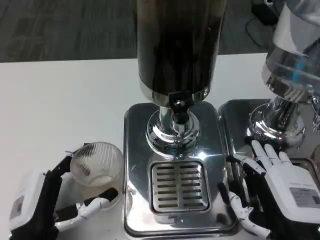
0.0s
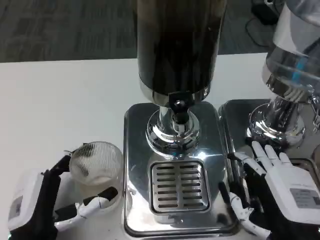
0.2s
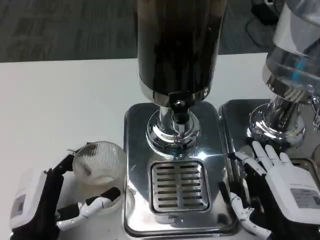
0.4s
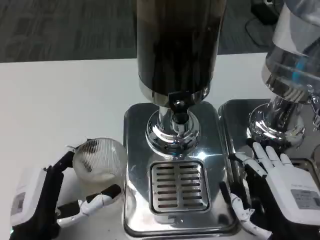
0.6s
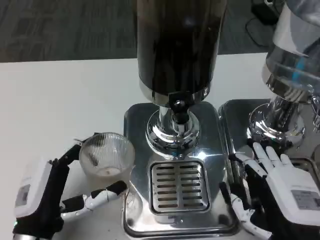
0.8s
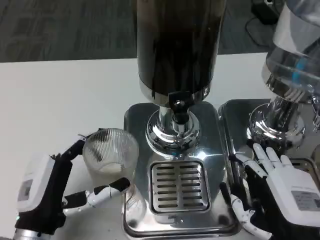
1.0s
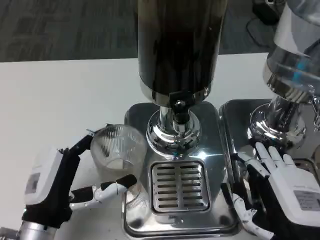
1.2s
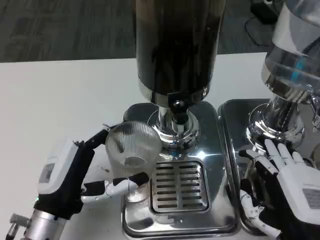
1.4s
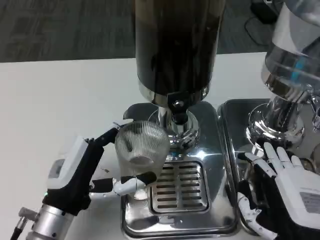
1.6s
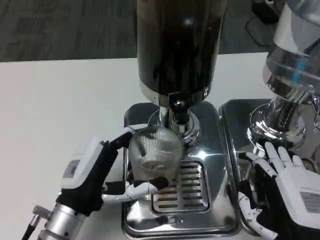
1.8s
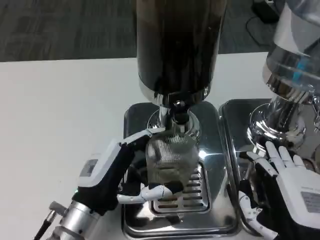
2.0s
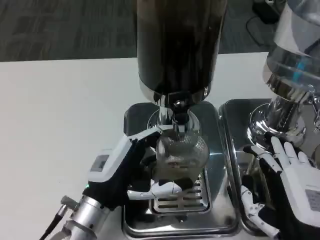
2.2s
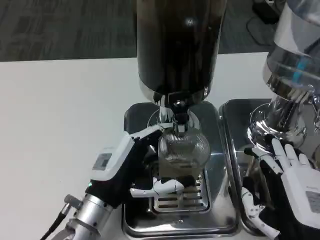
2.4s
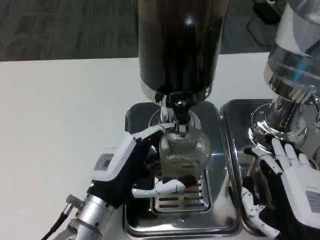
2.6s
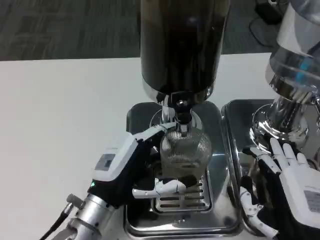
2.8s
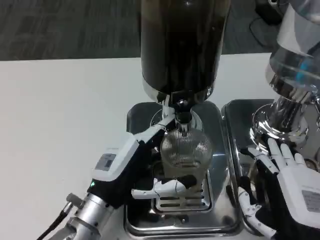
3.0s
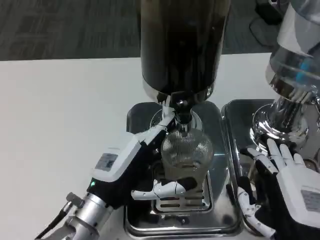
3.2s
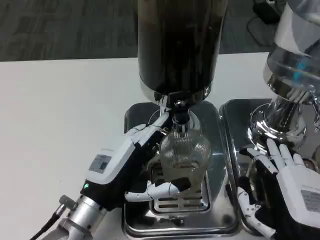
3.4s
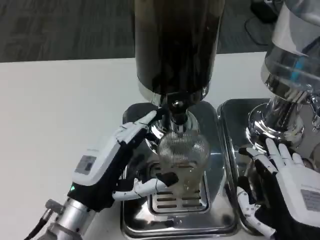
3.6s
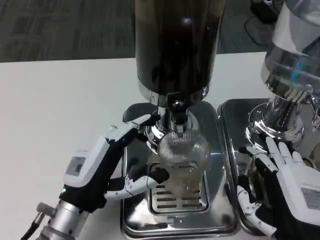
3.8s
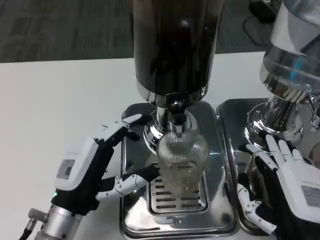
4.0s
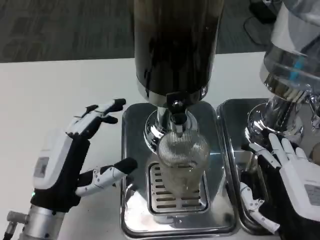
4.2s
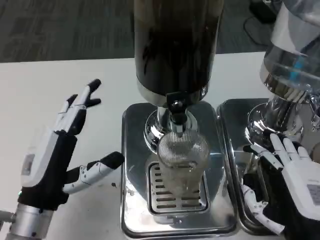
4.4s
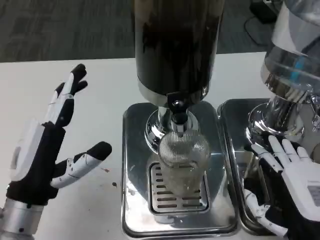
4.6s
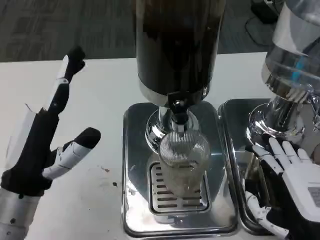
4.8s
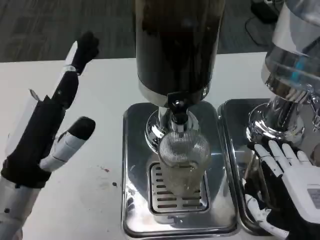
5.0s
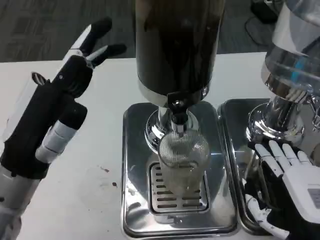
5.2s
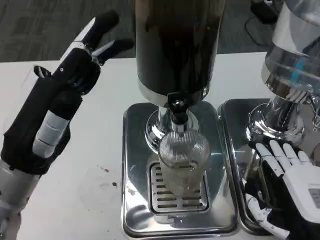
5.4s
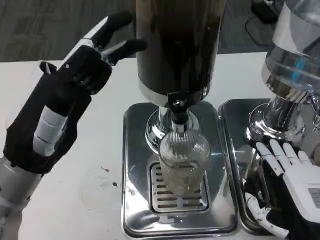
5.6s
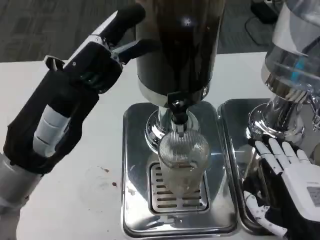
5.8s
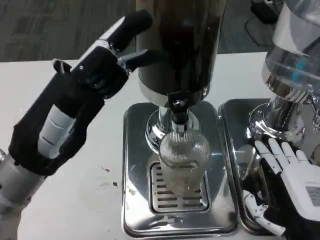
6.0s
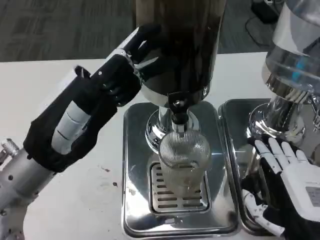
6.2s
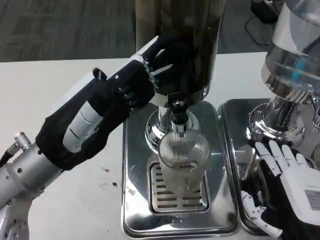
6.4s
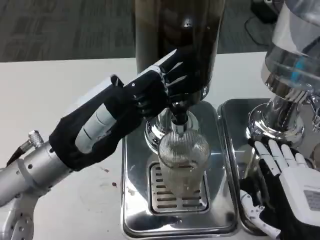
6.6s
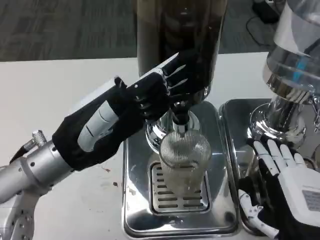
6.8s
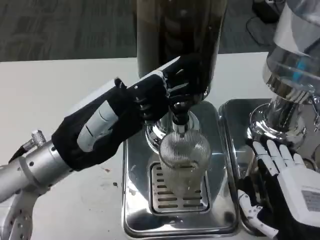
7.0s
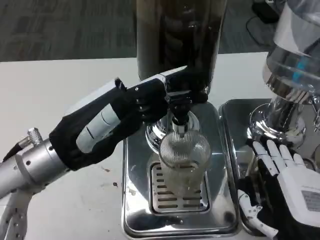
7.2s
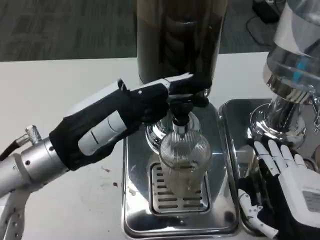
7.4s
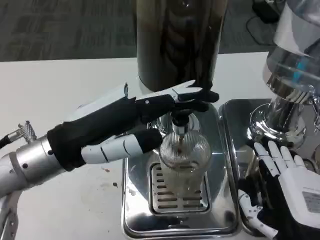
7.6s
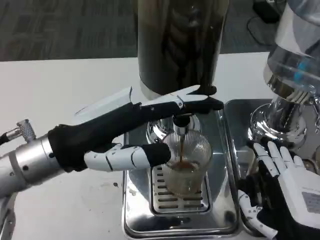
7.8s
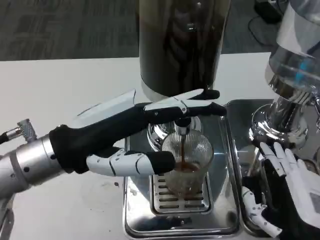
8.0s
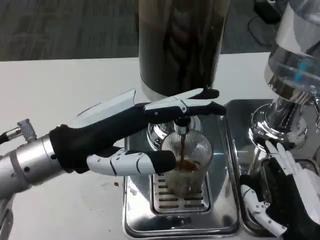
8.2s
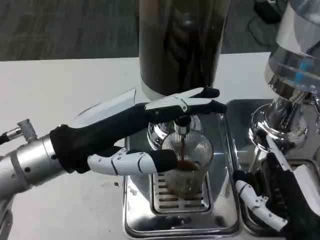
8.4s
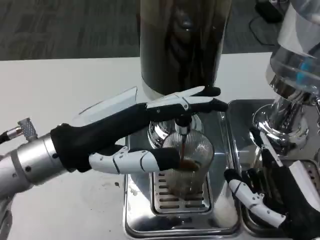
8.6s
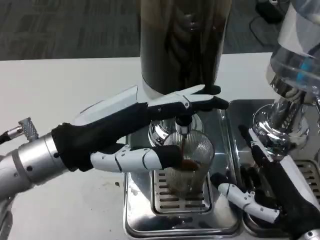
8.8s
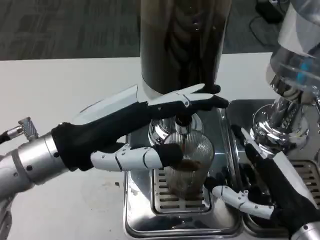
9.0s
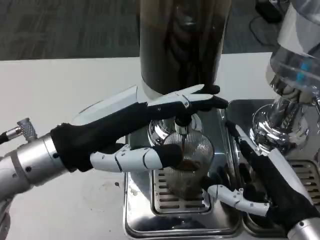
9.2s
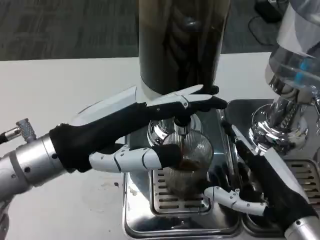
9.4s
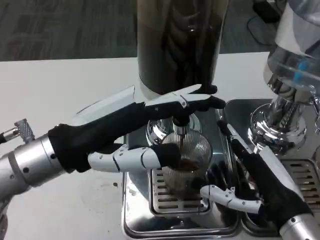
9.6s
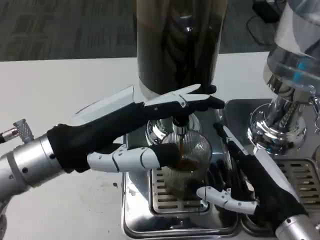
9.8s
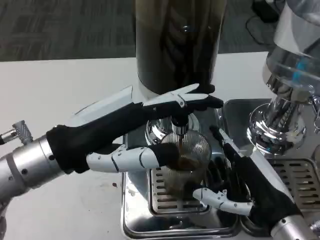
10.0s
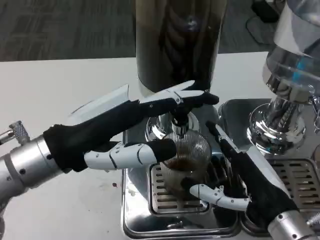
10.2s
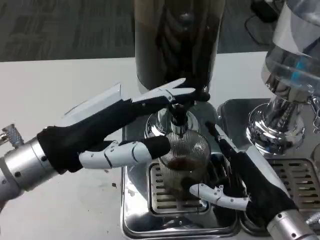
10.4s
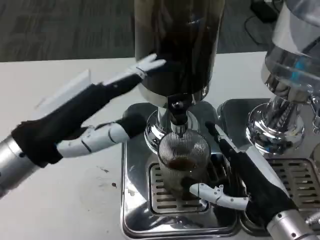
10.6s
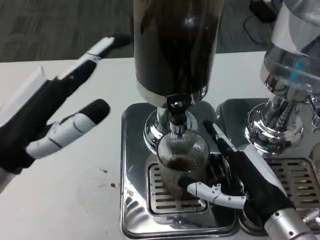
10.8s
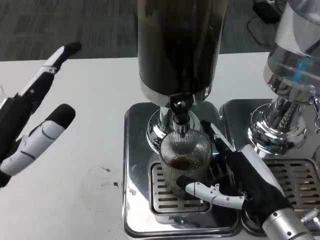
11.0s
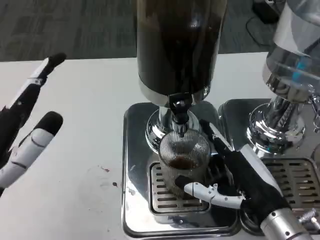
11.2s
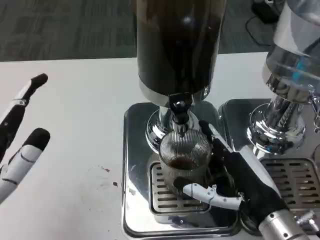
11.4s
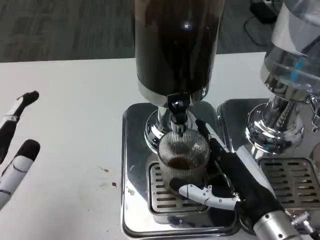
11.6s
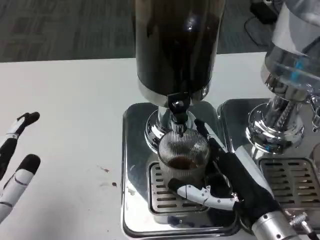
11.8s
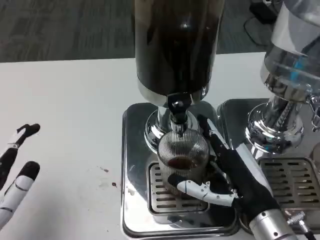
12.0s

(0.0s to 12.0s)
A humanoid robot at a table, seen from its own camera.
Task of the whole recording: Grasp the cup under the faucet to collect the drink, then remove the cup.
0.0s - 1.6s: The left hand moves forward, some 5 cm.
1.6s - 3.0s: The left hand changes place by about 5 cm.
3.0s - 4.4s: The left hand heads to the left, covering approximately 5 cm.
4.4s - 6.0s: The left hand is displaced upward by approximately 10 cm.
10.4s - 12.0s: The left hand moves backward, downward and to the left, roughly 15 cm.

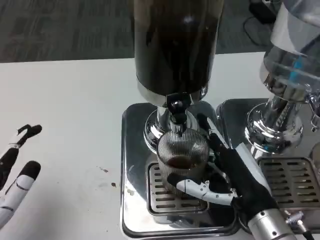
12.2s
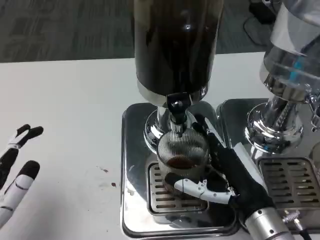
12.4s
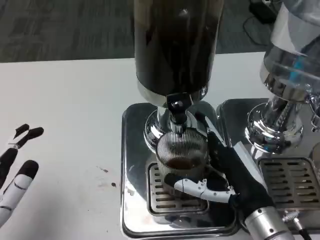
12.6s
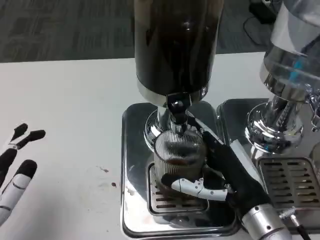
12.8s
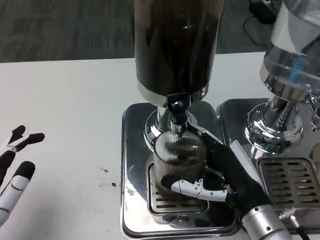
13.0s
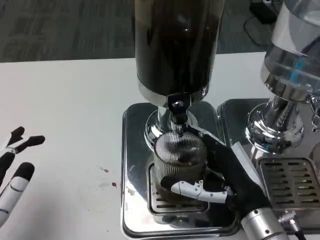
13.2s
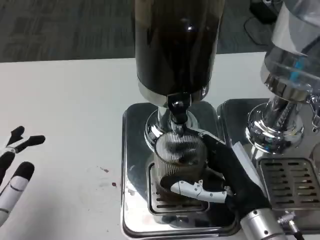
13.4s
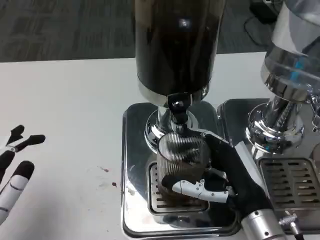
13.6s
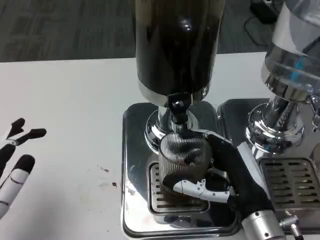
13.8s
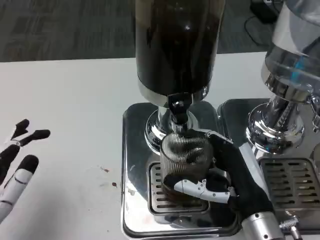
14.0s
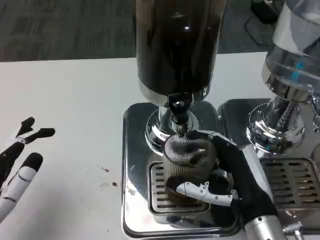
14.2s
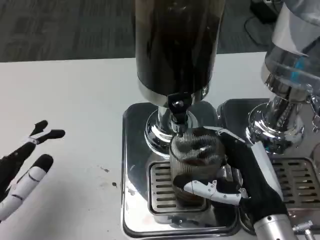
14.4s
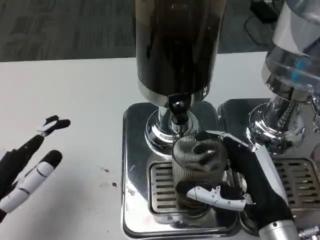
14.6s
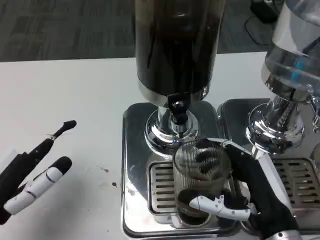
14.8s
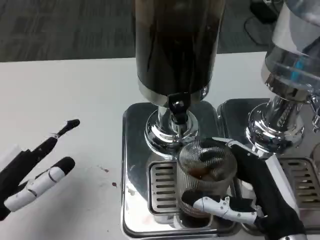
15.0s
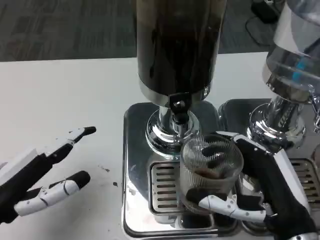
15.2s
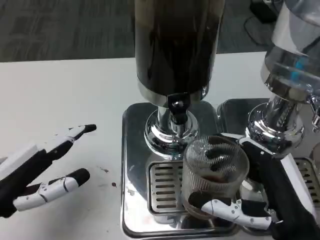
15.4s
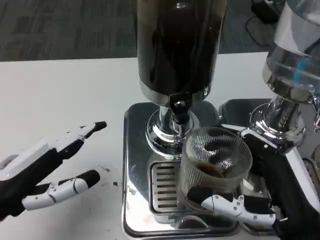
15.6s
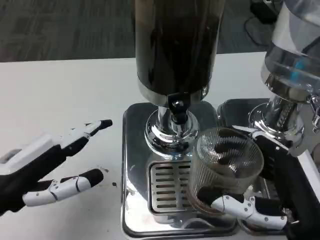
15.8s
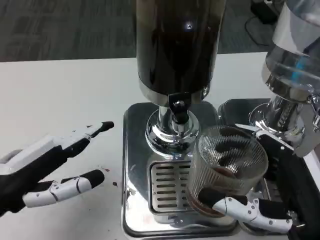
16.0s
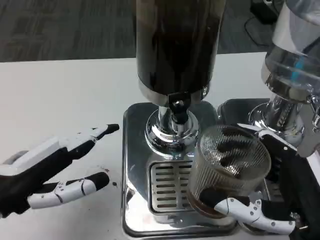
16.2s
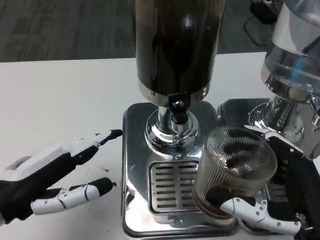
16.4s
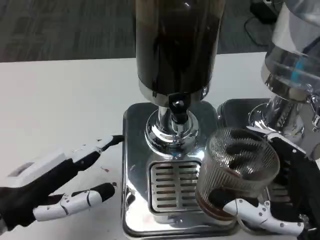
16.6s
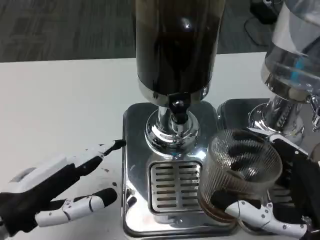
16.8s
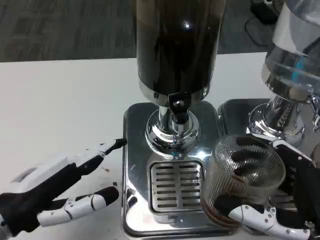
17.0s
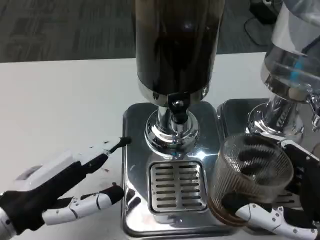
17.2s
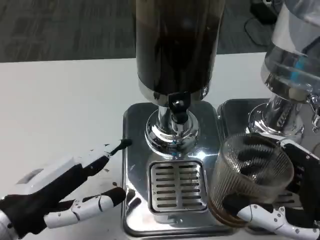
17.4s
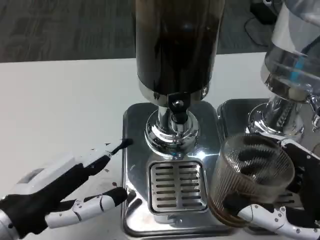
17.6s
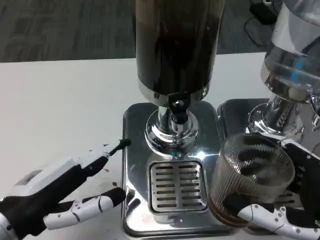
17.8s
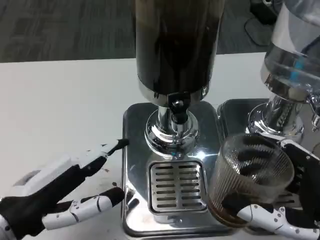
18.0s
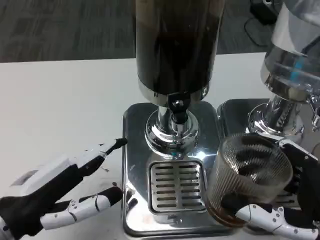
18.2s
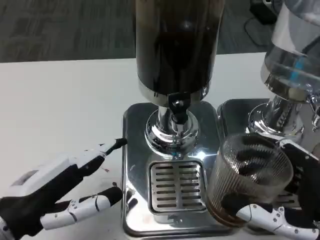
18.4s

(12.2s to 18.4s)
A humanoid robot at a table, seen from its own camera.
Task of the whole recording: Grasp the cup under the faucet to collect the drink, then remove the cup.
12.2s - 13.8s: The hands move only a little.
13.8s - 15.4s: The right hand moves backward, approximately 5 cm. Meanwhile the left hand is displaced forward by some 5 cm.
16.8s - 18.4s: The hands move only a little.

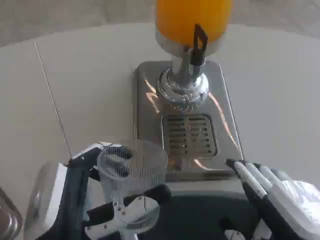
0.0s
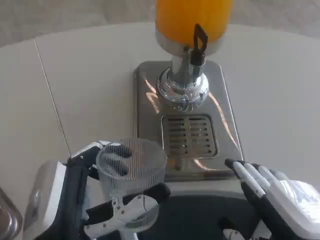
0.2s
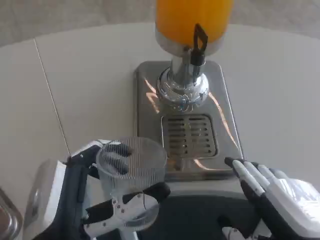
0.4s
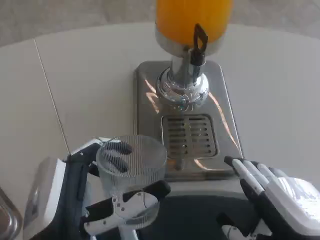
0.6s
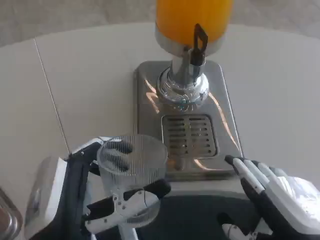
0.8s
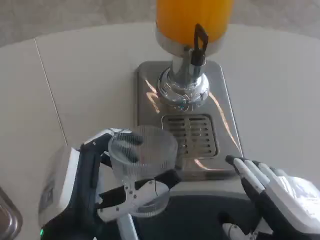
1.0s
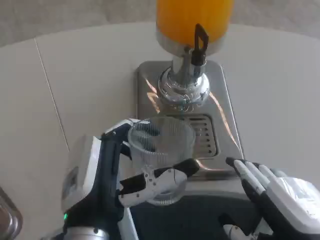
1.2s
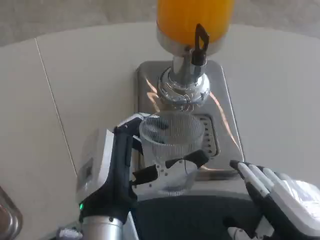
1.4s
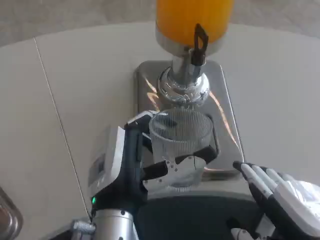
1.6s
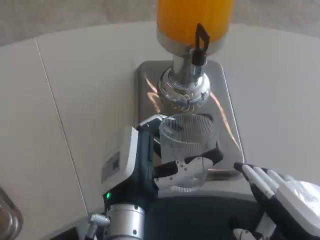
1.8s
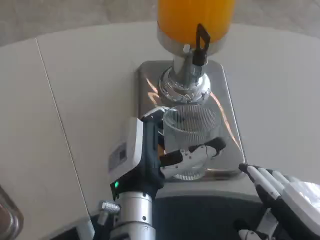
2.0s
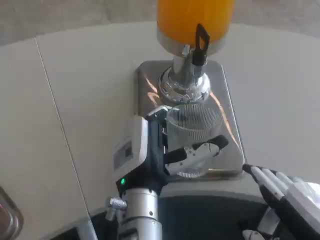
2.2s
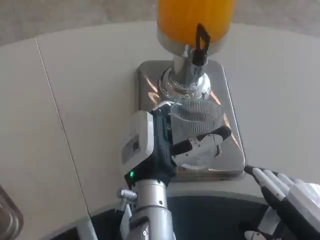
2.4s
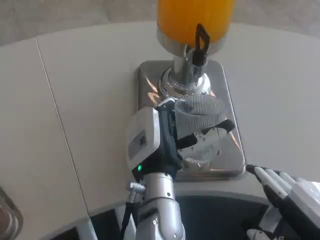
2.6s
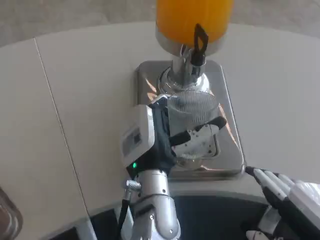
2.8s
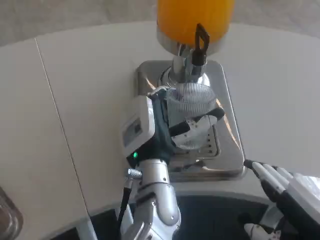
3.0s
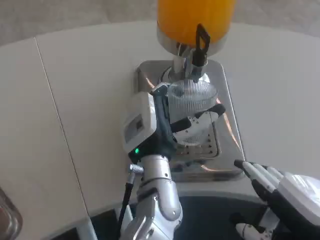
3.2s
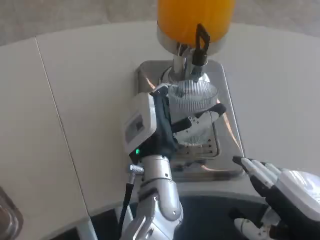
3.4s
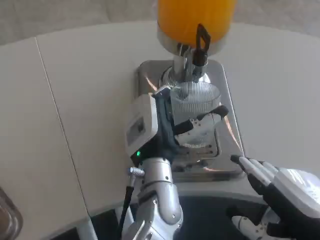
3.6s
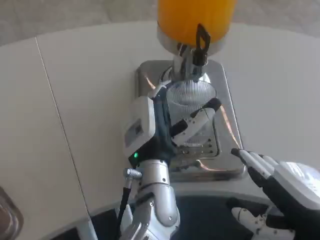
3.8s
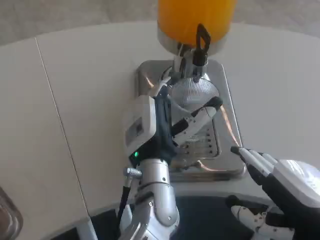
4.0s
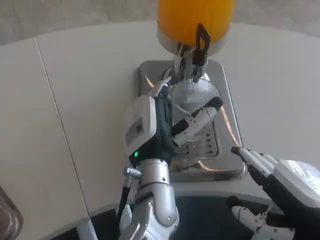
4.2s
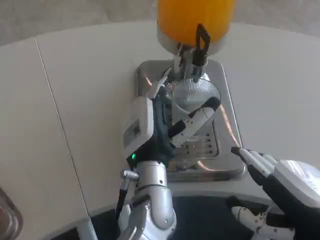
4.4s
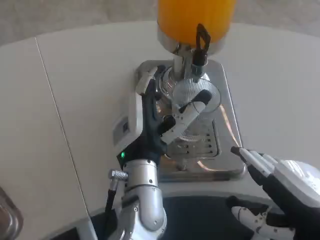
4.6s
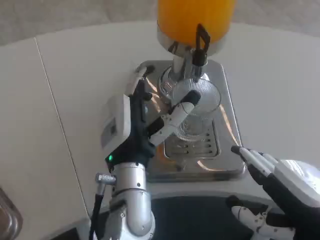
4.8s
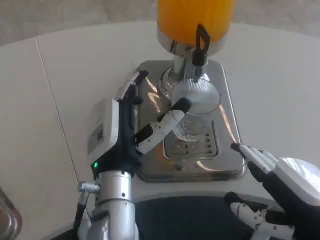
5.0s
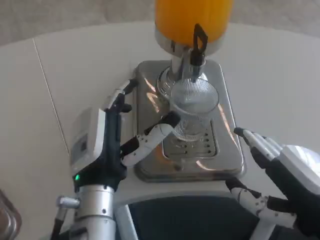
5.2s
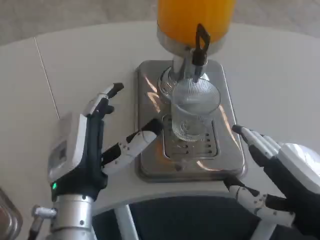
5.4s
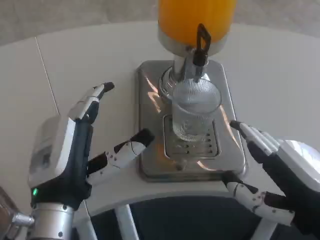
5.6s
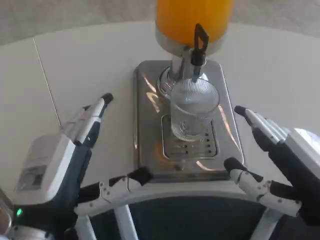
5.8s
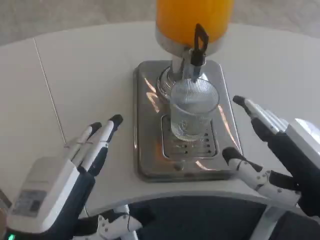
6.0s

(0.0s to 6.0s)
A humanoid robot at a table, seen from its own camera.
Task of the whole recording: Grasp the cup under the faucet to collect the drink, then remove the cup.
0.0s - 1.6s: The left hand goes roughly 10 cm forward and to the right.
1.6s - 3.0s: The left hand shifts approximately 10 cm forward and to the right.
3.0s - 4.4s: The hands move only a little.
4.4s - 6.0s: The left hand shifts roughly 20 cm to the left and backward.
